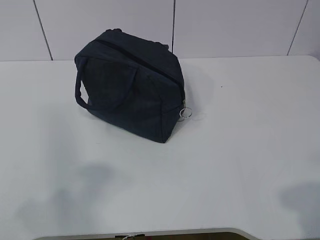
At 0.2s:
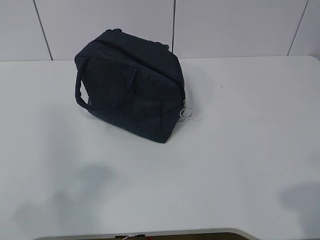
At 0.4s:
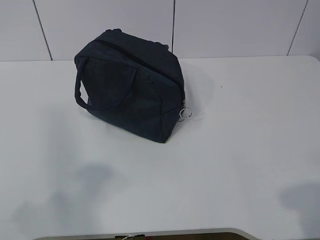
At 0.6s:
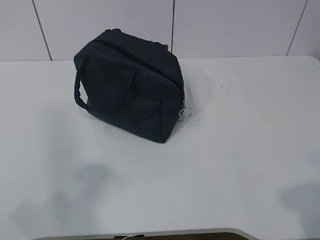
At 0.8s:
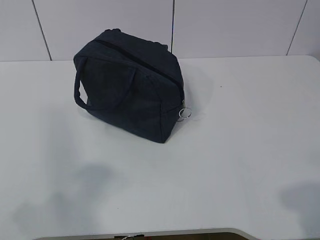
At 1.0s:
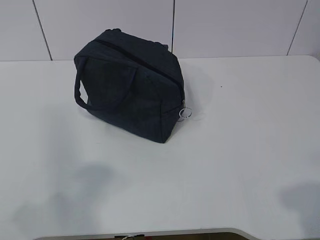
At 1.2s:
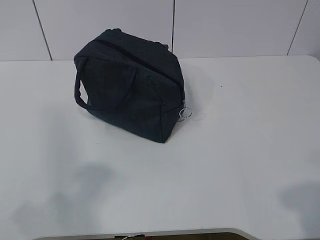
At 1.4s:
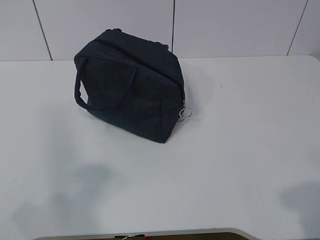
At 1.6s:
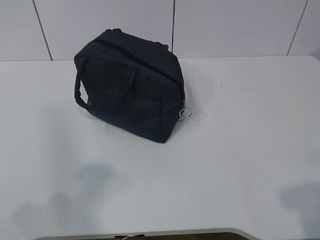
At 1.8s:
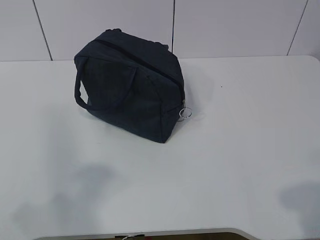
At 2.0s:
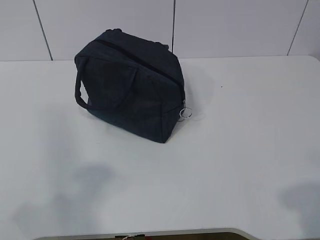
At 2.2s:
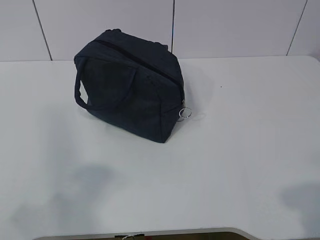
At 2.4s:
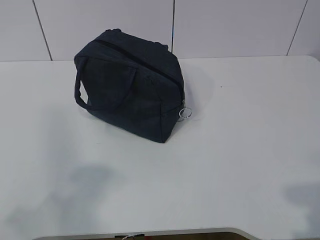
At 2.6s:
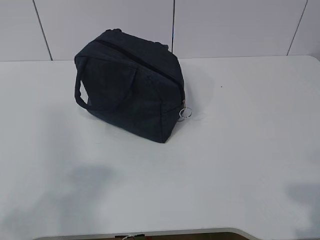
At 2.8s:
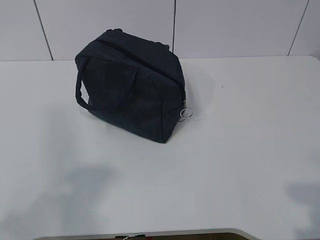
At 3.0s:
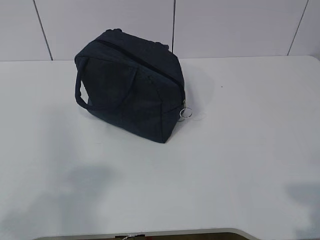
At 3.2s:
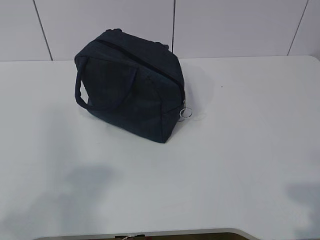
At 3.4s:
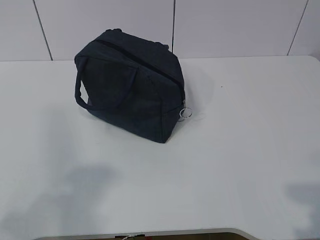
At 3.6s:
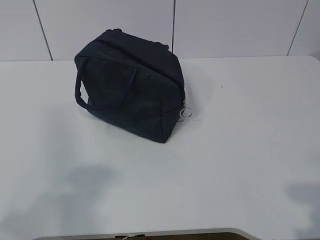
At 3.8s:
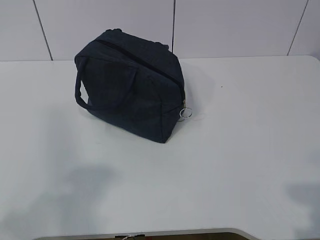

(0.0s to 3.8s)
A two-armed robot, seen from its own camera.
0.0s - 1.2s: Both grippers stay put.
2.6s - 3.8s: Both grippers stay about where they are.

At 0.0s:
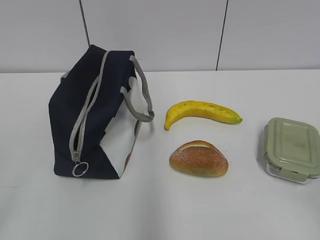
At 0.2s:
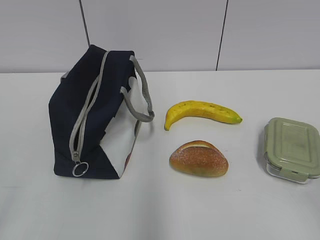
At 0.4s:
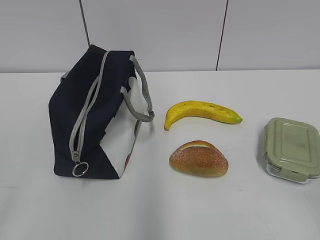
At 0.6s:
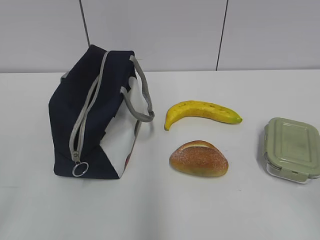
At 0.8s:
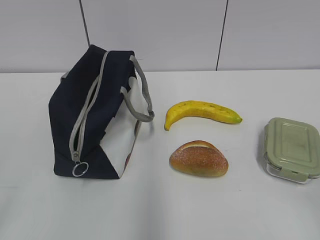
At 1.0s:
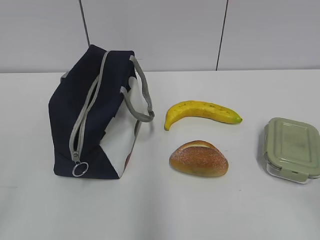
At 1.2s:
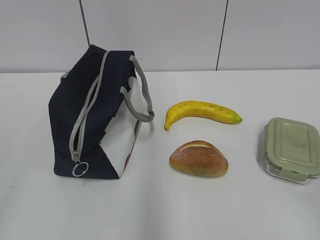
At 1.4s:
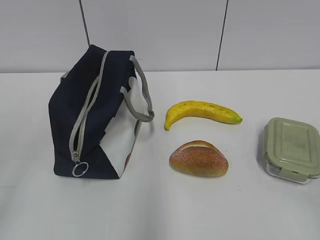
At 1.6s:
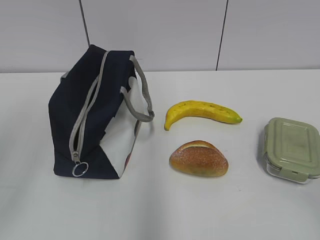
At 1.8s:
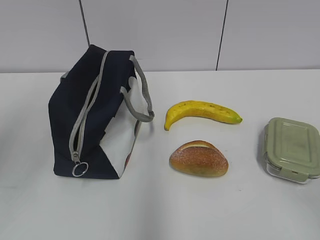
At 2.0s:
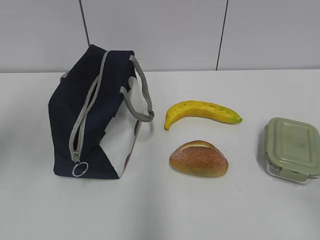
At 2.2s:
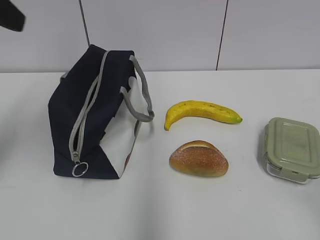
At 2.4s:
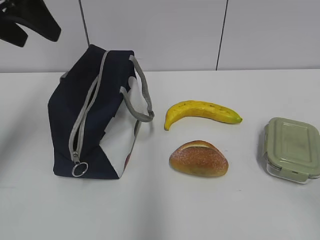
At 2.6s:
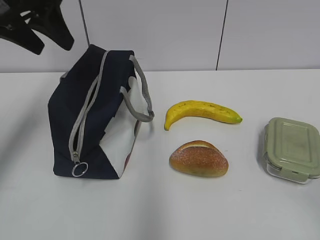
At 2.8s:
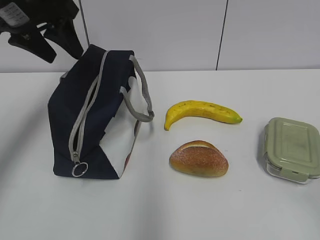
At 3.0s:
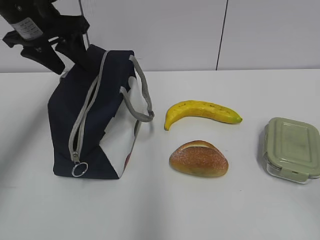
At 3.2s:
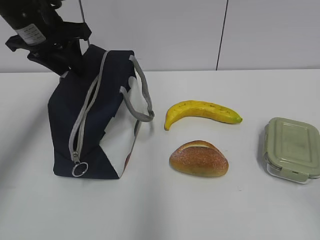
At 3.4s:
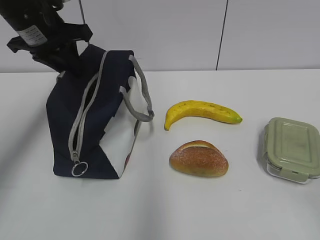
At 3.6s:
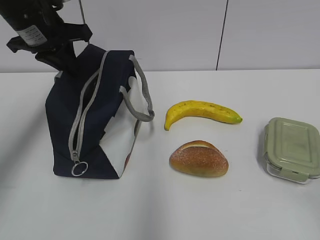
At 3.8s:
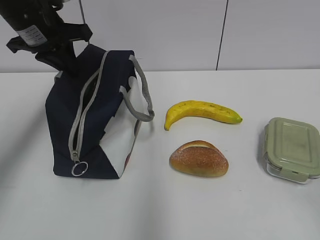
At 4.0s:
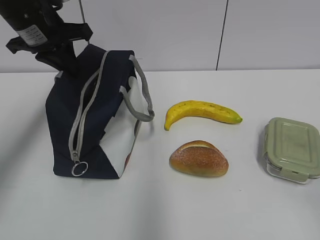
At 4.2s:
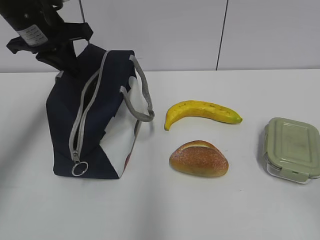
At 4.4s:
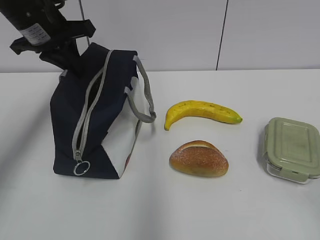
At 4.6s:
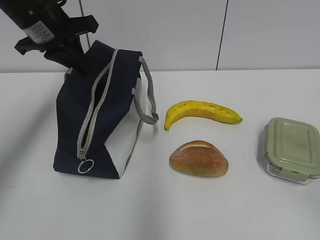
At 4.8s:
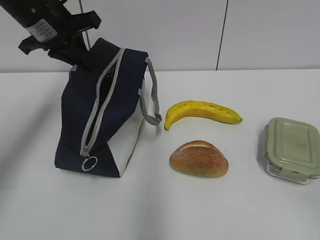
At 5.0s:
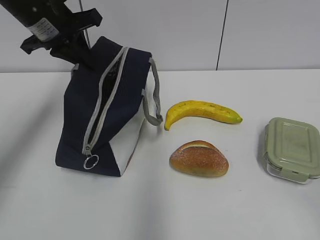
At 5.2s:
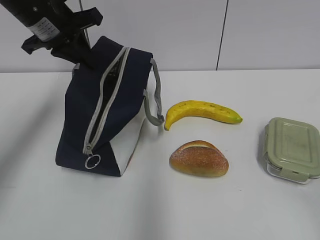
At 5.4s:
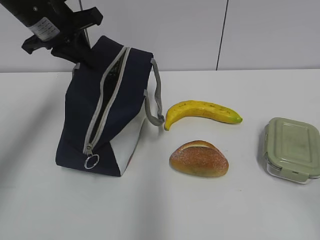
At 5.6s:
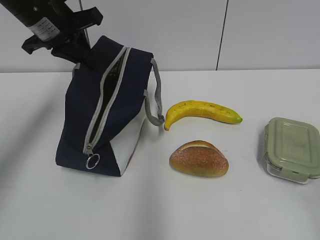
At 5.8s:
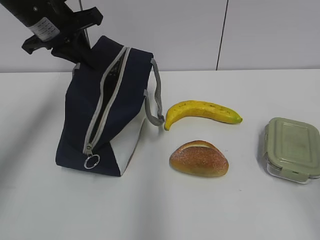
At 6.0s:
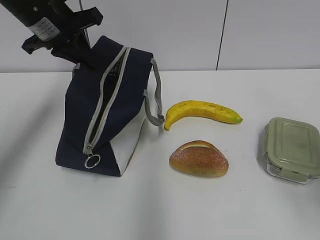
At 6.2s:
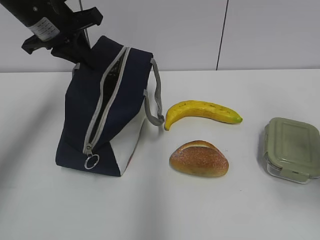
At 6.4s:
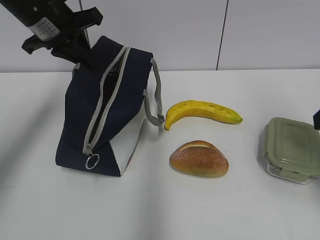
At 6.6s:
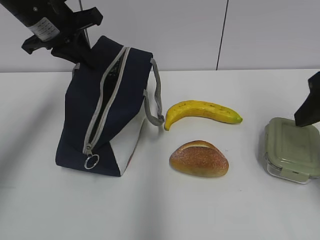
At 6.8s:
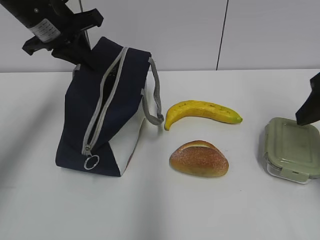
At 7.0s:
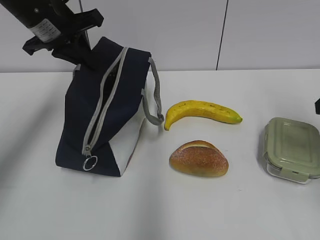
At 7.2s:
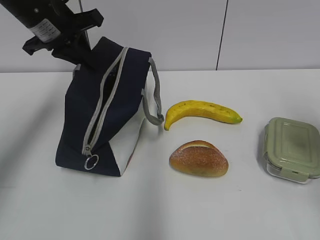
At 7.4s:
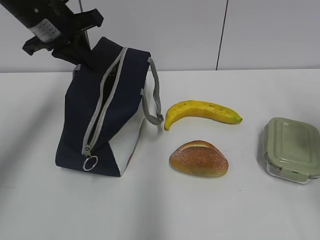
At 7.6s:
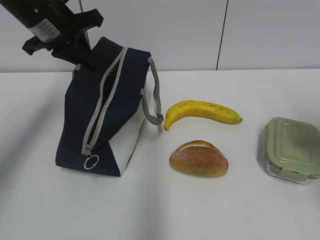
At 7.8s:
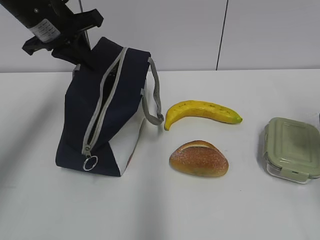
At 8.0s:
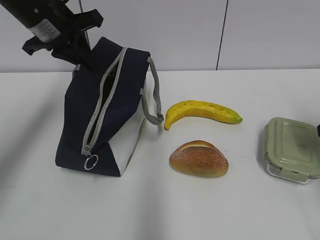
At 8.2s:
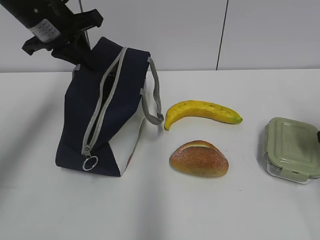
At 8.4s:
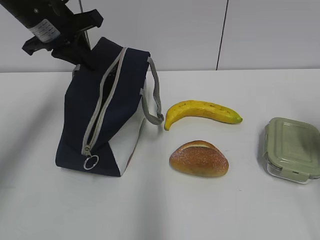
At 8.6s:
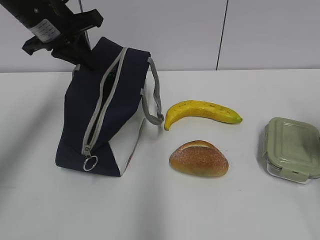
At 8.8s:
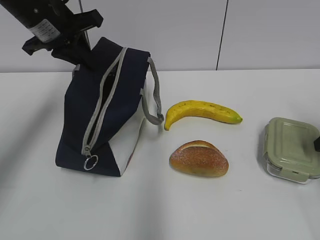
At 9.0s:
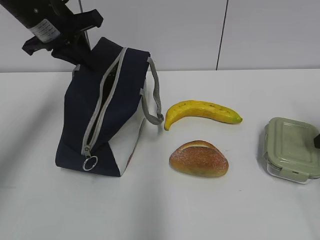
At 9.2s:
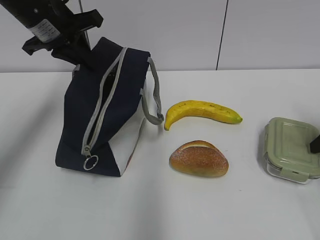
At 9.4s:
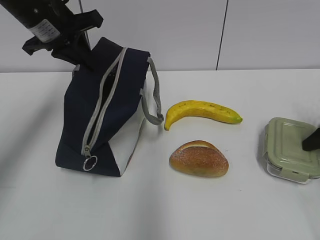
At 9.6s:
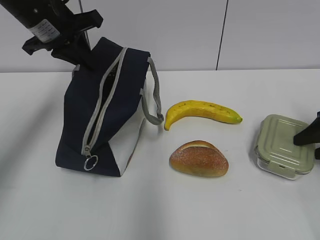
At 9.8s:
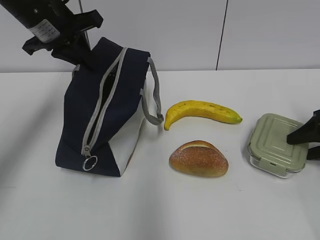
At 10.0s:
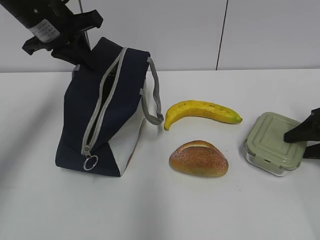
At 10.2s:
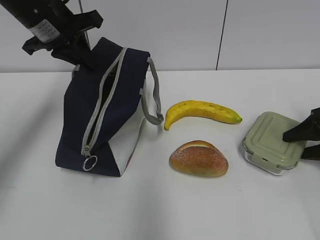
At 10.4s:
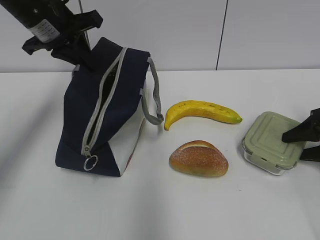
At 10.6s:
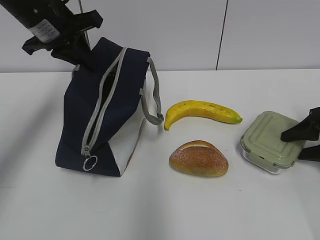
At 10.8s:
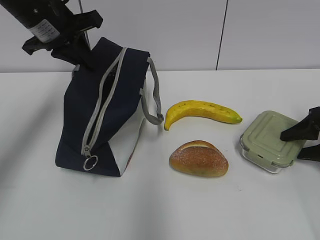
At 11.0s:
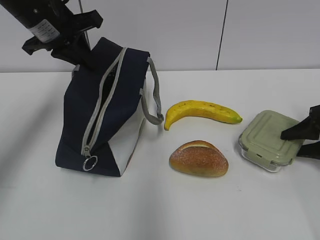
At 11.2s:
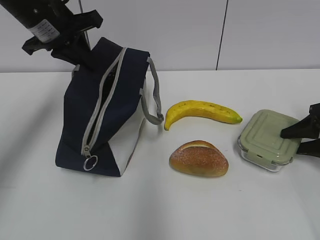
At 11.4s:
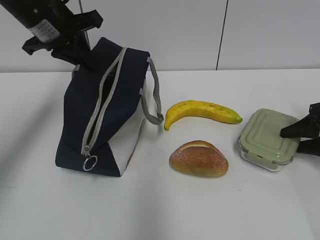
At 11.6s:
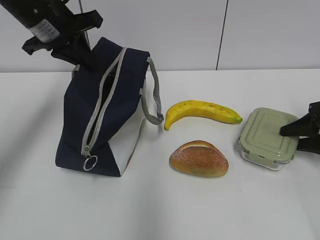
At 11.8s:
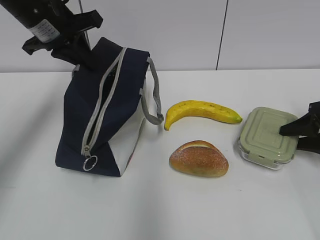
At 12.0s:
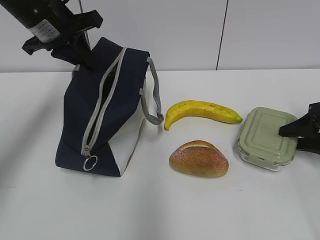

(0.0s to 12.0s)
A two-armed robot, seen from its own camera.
1.6s - 3.0s: The left gripper goes approximately 30 cm forward.
3.0s - 4.4s: The left gripper closes.
4.4s - 6.0s: The right gripper moves forward, about 10 cm.
6.0s - 7.6s: The right gripper heads forward and to the right, covering some 20 cm.
9.0s - 10.4s: The right gripper heads downward, covering roughly 5 cm.
10.4s - 12.0s: There are only small adjustments of the grippers.

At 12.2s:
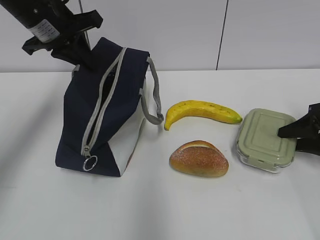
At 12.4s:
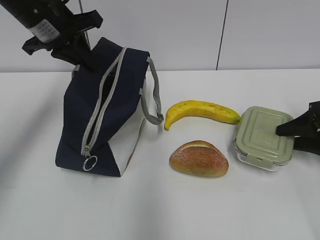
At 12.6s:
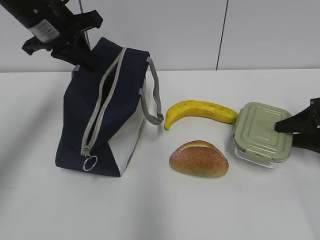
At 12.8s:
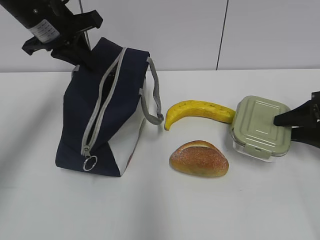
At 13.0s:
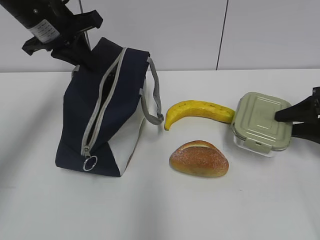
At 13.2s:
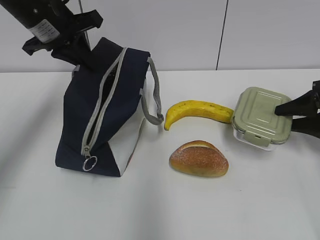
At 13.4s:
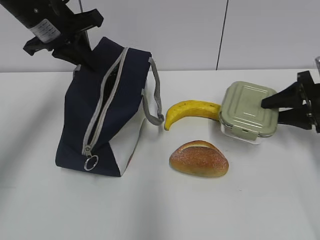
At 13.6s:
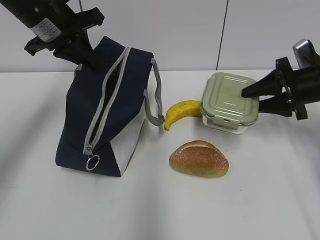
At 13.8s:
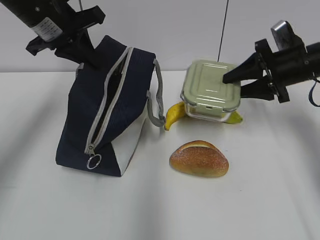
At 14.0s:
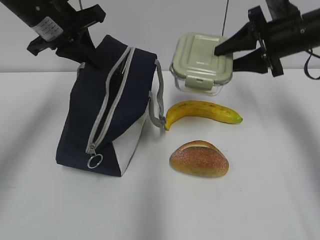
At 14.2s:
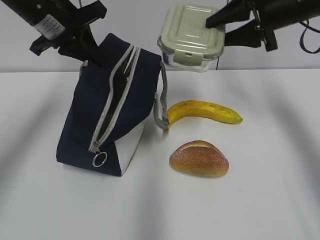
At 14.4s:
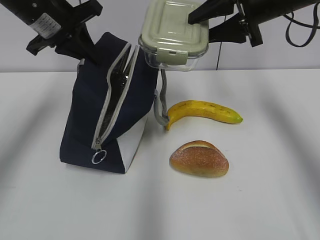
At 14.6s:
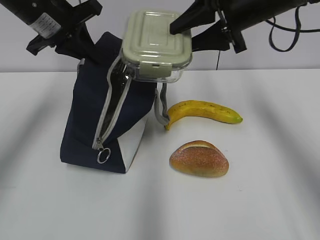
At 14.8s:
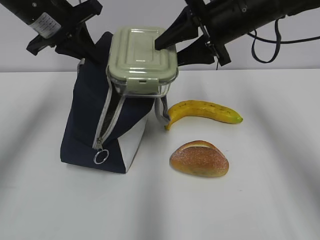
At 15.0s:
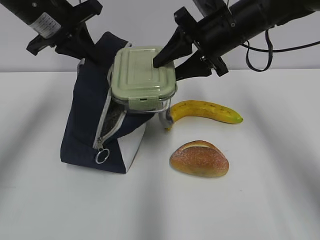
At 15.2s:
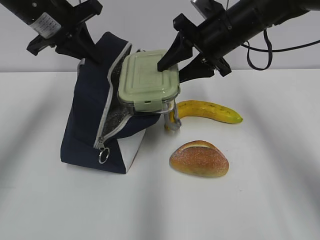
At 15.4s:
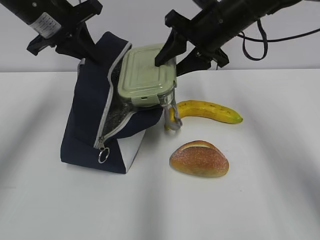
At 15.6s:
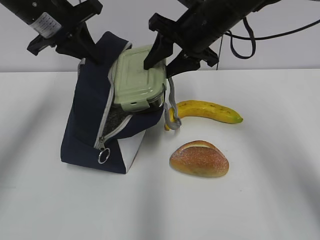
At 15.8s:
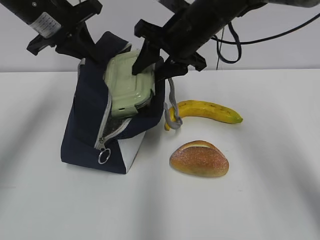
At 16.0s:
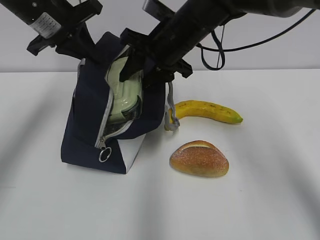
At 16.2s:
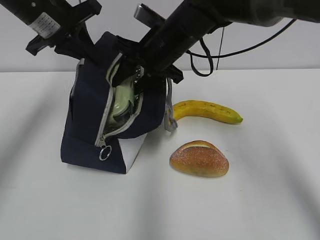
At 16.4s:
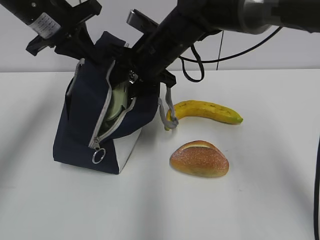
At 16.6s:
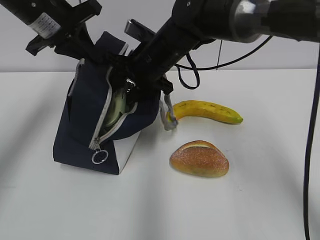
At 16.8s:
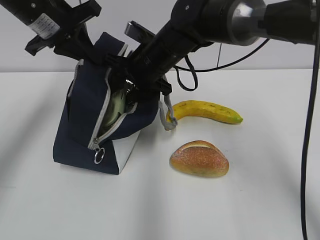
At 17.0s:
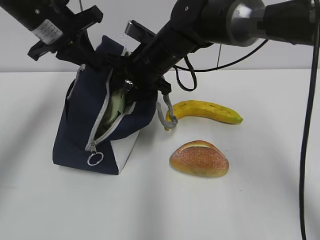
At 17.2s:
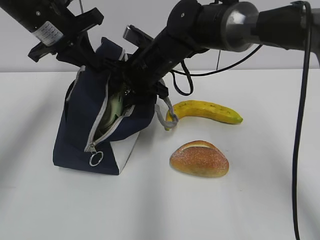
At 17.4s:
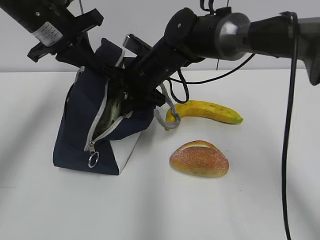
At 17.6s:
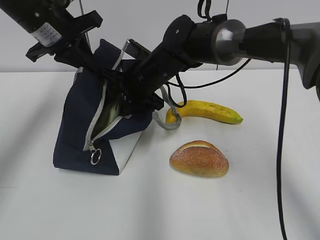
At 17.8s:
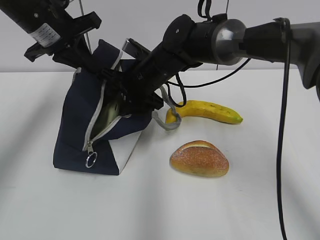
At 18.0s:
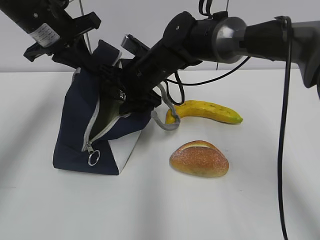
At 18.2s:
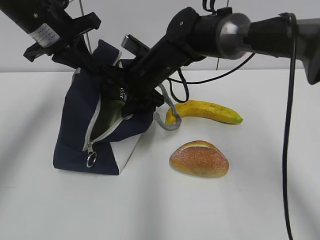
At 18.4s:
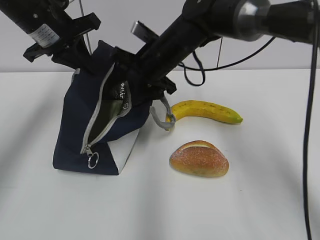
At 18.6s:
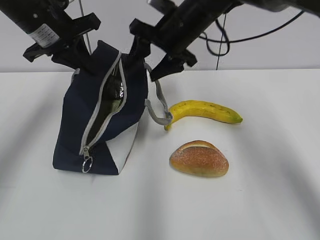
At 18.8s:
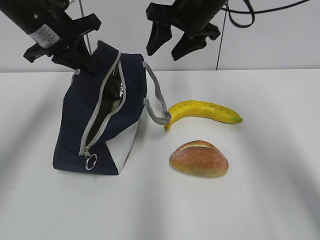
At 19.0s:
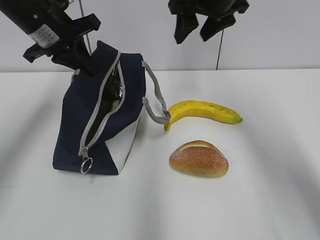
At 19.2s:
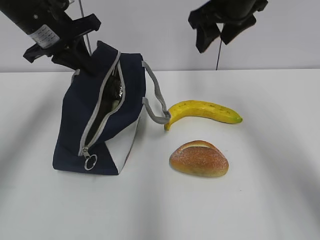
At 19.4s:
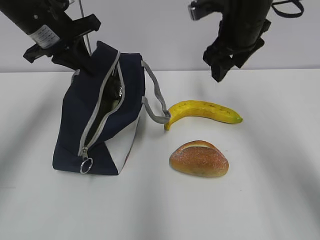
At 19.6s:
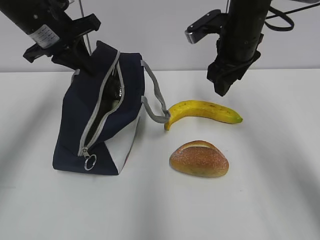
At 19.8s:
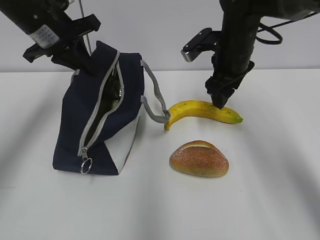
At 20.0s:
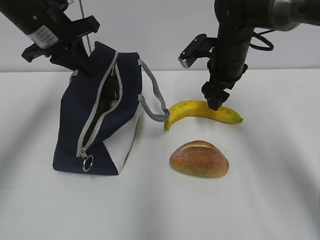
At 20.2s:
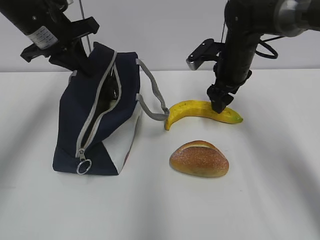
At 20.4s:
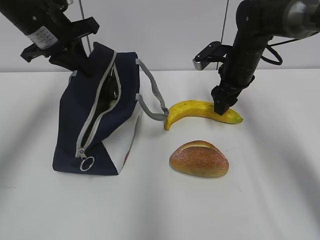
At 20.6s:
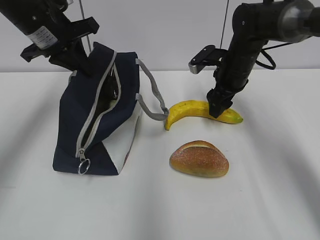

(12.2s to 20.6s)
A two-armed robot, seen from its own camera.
Step, 14.8s - 18.0s: Place it into the bag with your right hand.
12.2s - 13.6s: The right gripper moves to the left, upward and forward, some 10 cm.
13.6s - 15.0s: The right gripper goes approximately 20 cm to the left and upward.
15.0s - 16.4s: The right gripper is displaced to the left by approximately 10 cm.
16.4s - 17.8s: The right gripper moves downward, some 5 cm.
17.8s - 19.2s: The right gripper is displaced upward and to the right by some 20 cm.
19.2s - 20.6s: The right gripper heads downward, covering some 15 cm.
